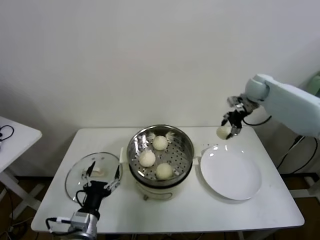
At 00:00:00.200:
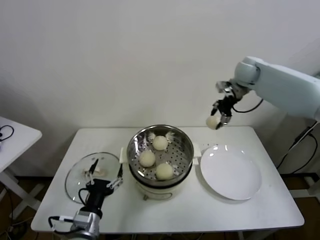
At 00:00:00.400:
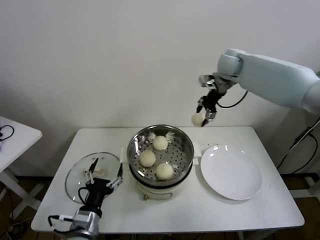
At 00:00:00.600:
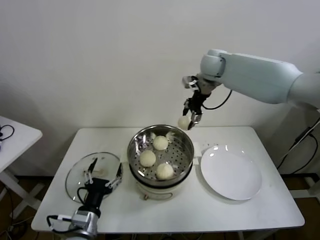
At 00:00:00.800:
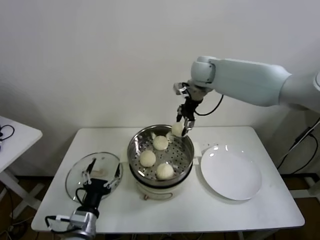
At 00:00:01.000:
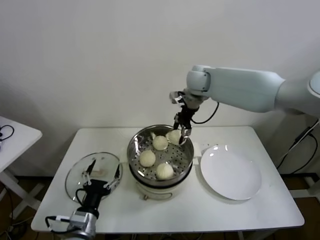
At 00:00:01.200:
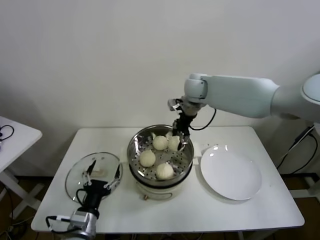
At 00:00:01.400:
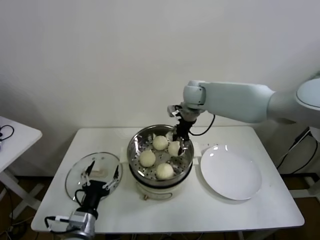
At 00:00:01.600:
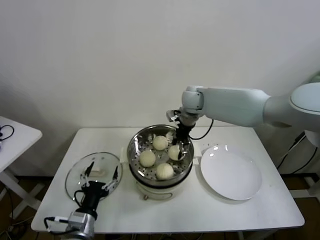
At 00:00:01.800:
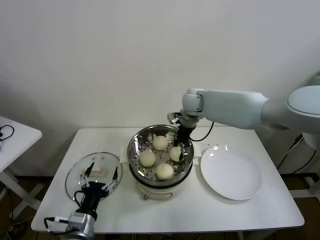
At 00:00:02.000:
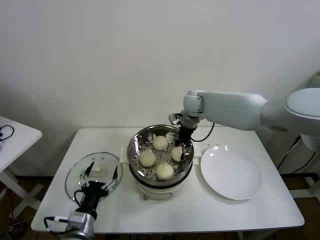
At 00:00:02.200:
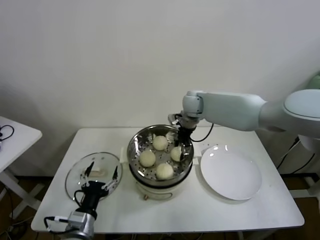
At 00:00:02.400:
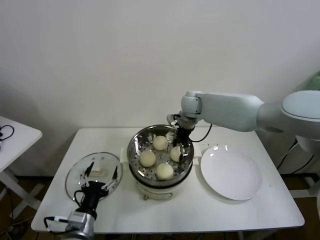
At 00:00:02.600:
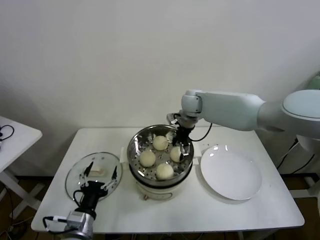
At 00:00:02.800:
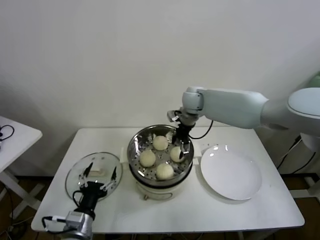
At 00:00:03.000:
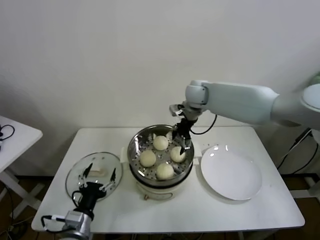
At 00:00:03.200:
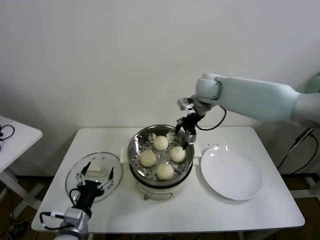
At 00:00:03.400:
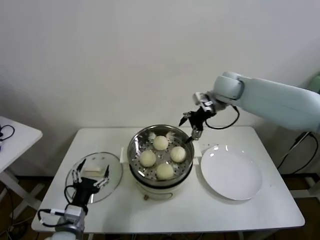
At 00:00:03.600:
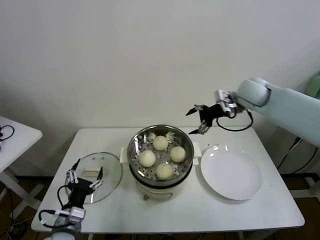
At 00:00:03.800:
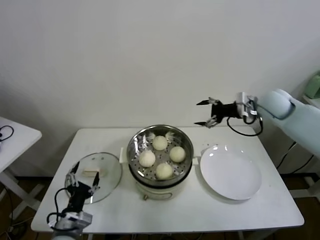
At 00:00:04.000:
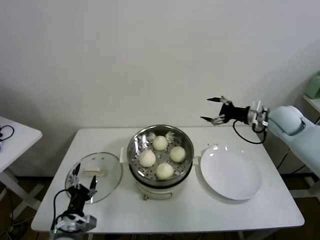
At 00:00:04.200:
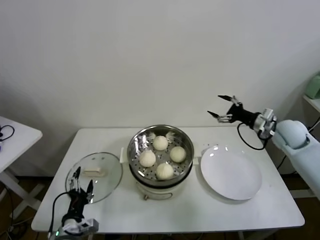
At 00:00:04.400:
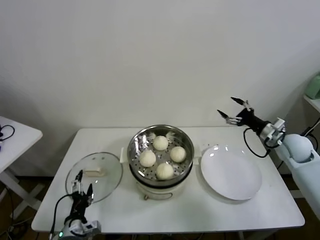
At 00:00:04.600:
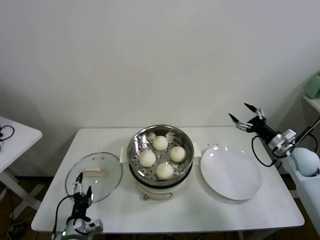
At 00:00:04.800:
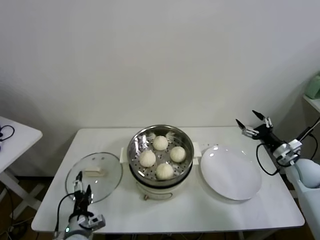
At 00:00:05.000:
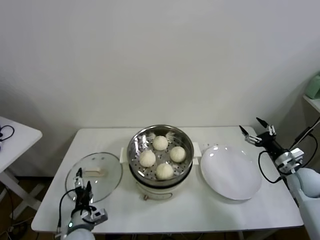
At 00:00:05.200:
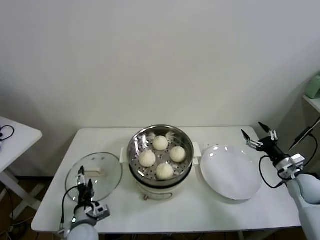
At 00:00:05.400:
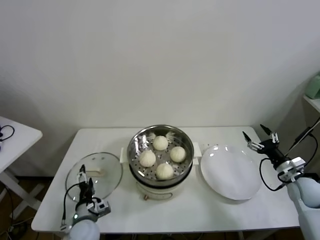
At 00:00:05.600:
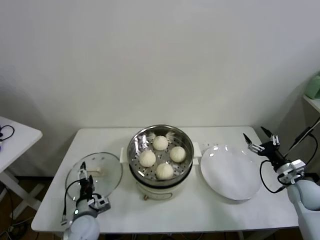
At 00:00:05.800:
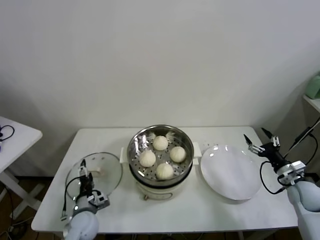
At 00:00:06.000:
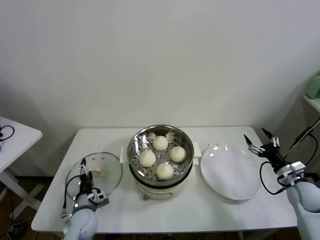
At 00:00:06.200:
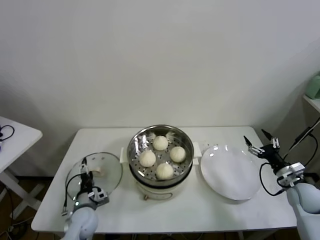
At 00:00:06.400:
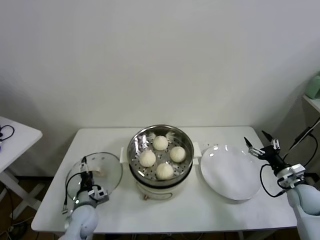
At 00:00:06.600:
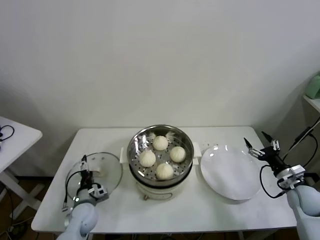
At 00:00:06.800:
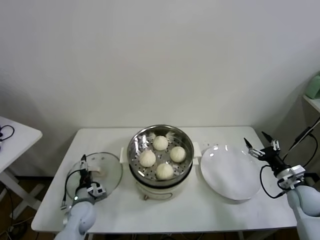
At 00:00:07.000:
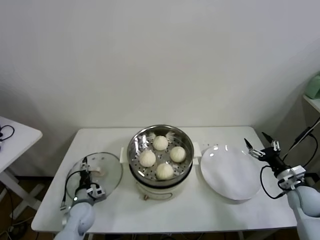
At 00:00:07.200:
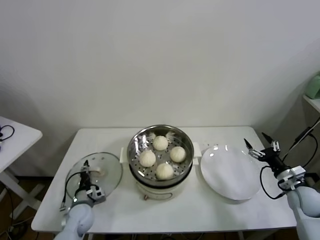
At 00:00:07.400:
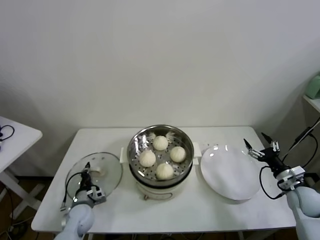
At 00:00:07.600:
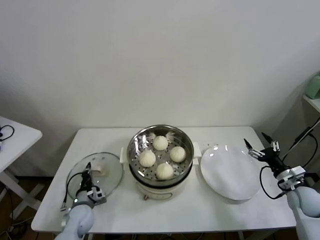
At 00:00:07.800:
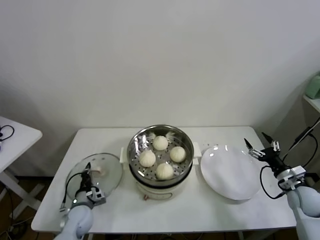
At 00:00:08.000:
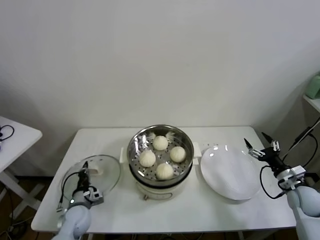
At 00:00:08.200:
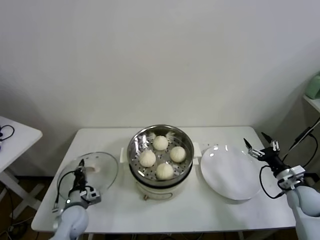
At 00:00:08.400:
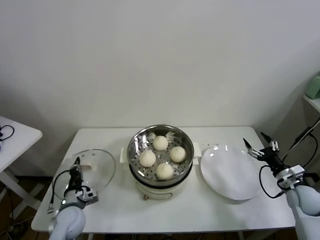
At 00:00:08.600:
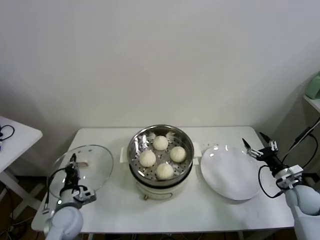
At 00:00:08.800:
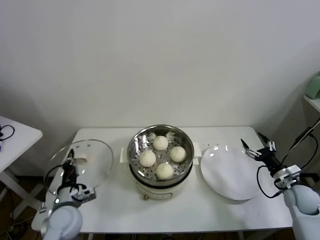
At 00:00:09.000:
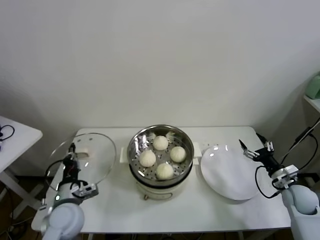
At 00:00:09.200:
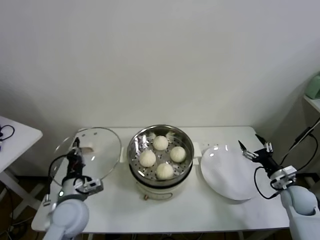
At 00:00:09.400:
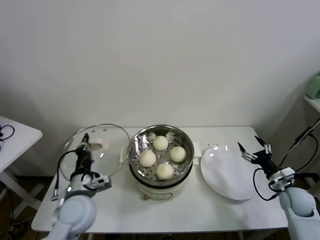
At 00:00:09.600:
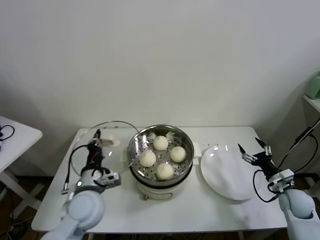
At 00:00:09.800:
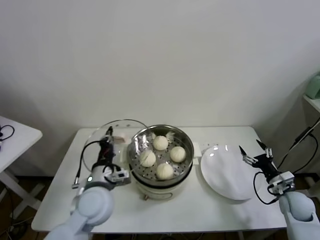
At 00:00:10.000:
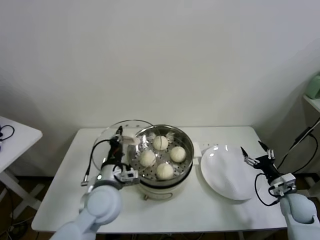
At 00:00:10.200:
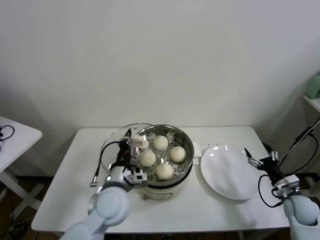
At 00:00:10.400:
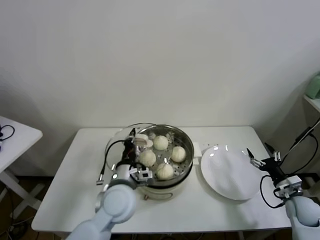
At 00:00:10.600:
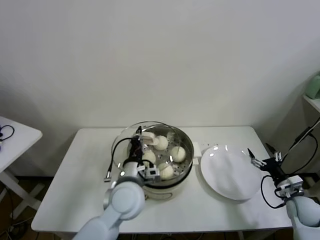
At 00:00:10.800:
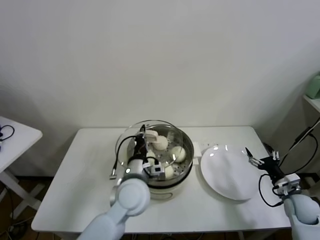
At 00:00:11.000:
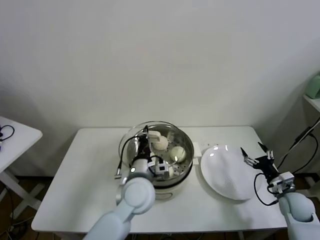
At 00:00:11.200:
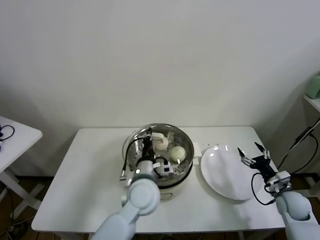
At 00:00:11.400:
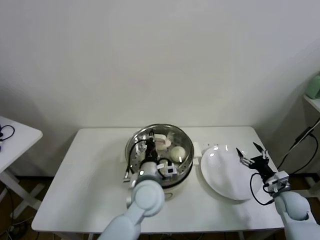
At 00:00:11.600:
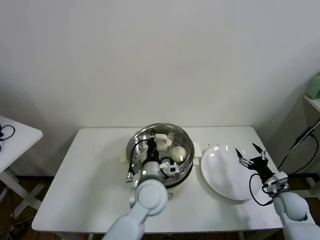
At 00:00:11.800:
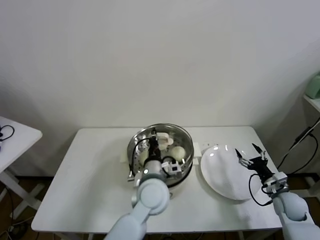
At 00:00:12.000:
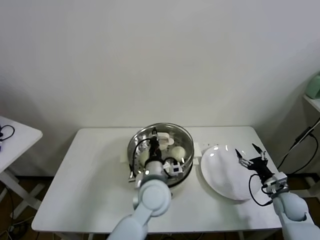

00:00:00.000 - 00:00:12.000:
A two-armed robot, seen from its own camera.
Task of the whole recording: take steamed baozi put them in steamer.
Step, 00:00:00.000 - 00:00:02.400: Place the baozi on the steamer with right gripper.
Step, 00:00:02.800 - 00:00:07.400: Grasp the pot lid with left gripper.
00:00:00.000 - 00:00:01.600: The right gripper travels to the left by roughly 25 cm.
00:00:01.600 - 00:00:03.000: The right gripper opens.
00:00:03.000 - 00:00:04.400: The right gripper travels to the right, backward and downward by some 35 cm; the left gripper shifts some 5 cm downward.
00:00:04.400 - 00:00:06.000: The left gripper is displaced forward by approximately 10 cm, while the right gripper is displaced downward and backward by approximately 15 cm.
00:00:06.000 - 00:00:07.600: The left gripper closes.
00:00:07.600 - 00:00:09.000: The left gripper shifts some 15 cm upward.
00:00:09.000 - 00:00:10.400: The left gripper goes some 15 cm to the right and upward.
00:00:10.400 - 00:00:12.000: The left gripper goes roughly 10 cm to the right.

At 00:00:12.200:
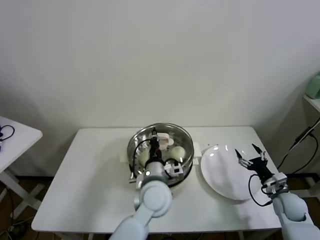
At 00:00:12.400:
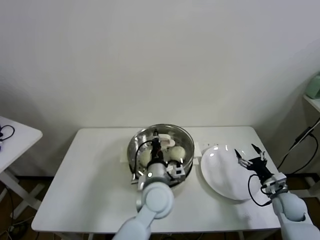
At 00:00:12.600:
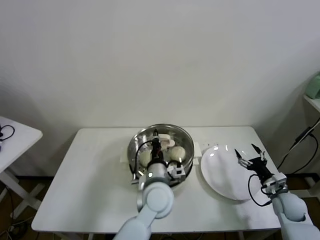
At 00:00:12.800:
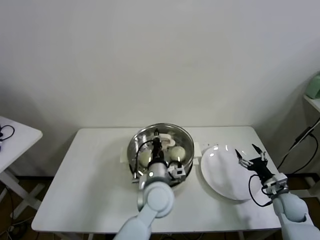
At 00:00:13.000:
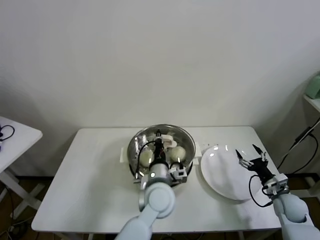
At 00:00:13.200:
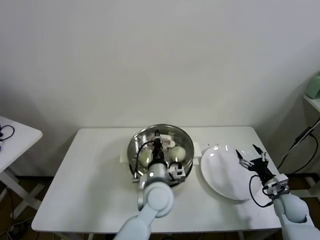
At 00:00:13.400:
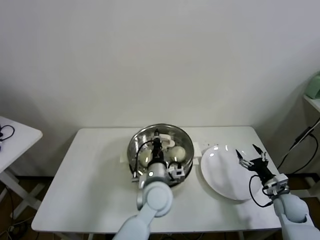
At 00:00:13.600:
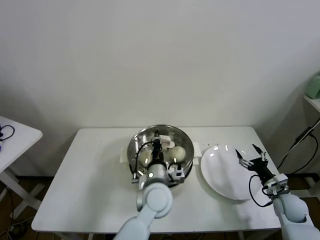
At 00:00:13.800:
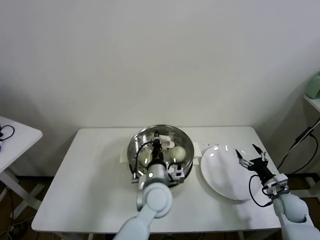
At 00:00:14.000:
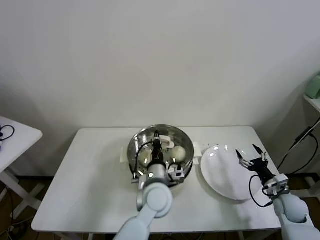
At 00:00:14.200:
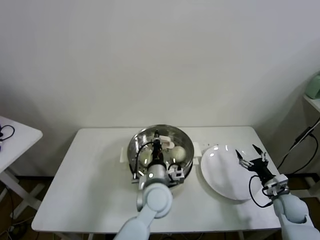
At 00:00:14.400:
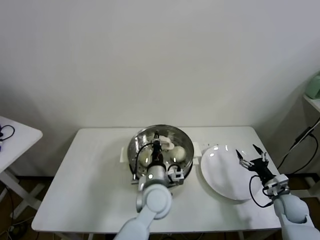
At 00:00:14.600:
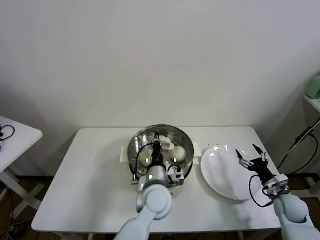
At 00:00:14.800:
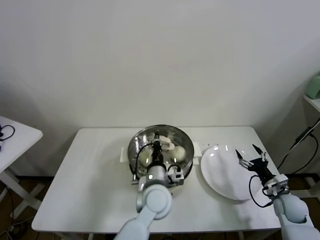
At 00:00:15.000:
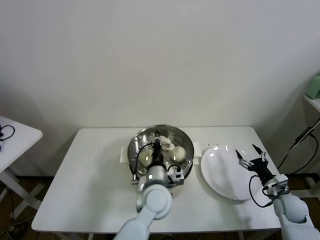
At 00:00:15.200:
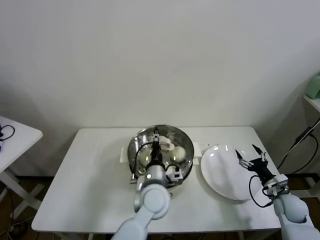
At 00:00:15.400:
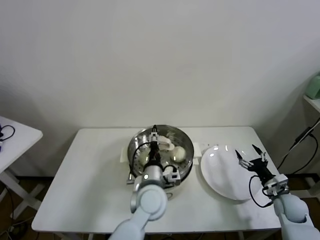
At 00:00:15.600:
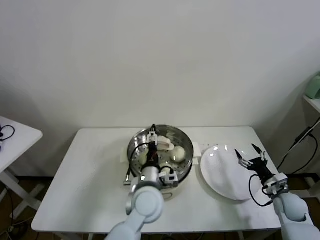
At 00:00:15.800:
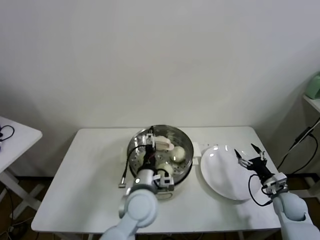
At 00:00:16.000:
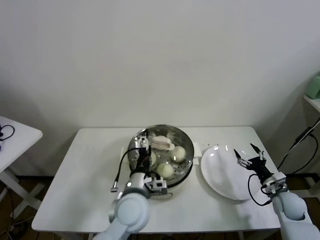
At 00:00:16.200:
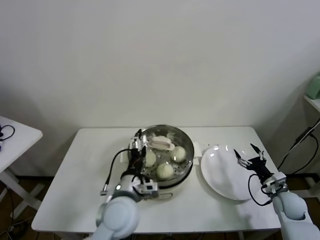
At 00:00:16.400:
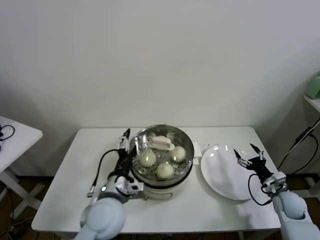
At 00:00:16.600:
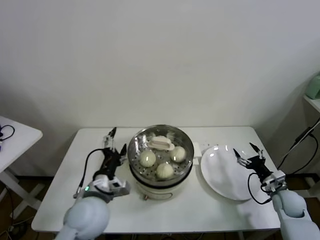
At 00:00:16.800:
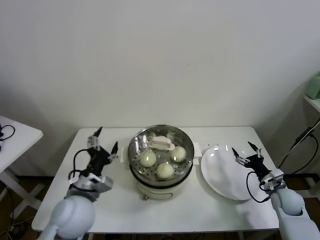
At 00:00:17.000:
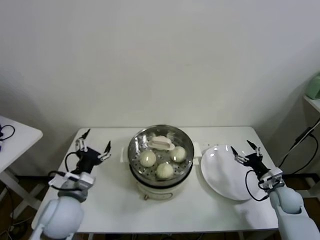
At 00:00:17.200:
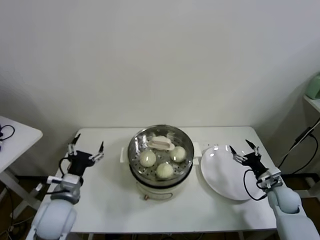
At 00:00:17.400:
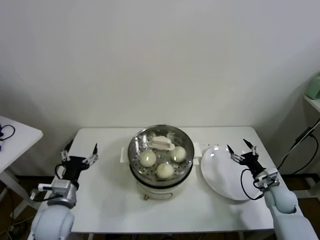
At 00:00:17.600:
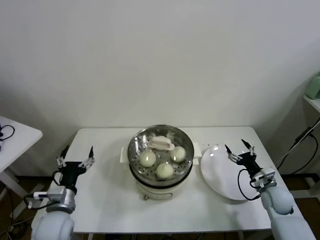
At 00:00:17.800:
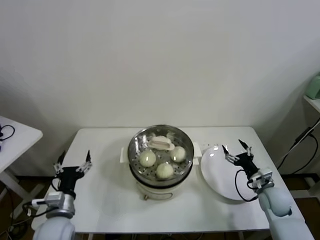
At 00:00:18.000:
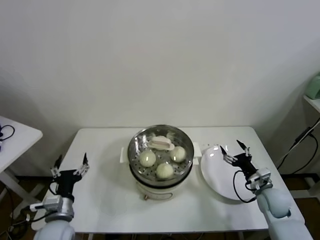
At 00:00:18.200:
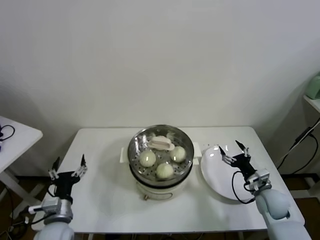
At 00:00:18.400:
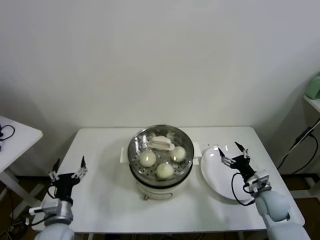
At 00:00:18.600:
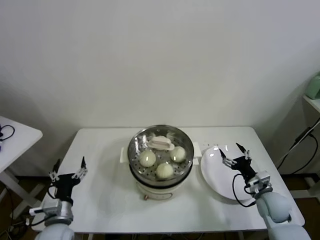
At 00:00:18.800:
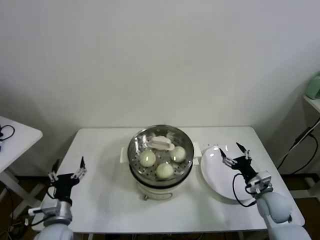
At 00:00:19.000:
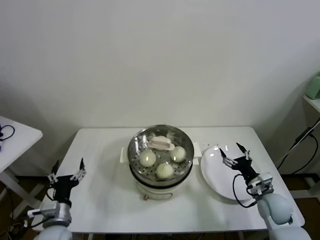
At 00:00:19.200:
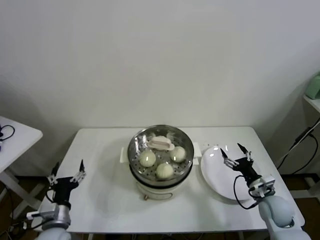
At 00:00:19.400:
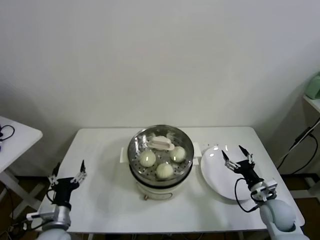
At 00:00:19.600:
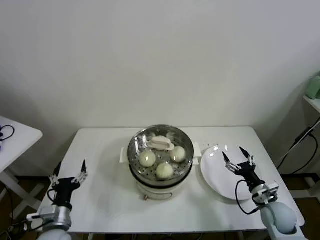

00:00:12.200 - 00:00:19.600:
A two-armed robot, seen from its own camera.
Task of the whole recording: take steamed baozi put them in steamer.
Step, 00:00:12.200 - 00:00:15.400: Place the pot lid on the steamer with left gripper.
00:00:12.200 - 00:00:13.600: There are only small adjustments of the grippers.
00:00:13.600 - 00:00:15.200: The left gripper opens.
00:00:15.200 - 00:00:16.600: The left gripper travels to the left by roughly 15 cm, and opens its fingers.
00:00:16.600 - 00:00:18.200: The right gripper heads to the left, covering some 5 cm. The left gripper travels to the left and downward by about 15 cm.
00:00:18.200 - 00:00:19.600: The grippers make only small movements.
